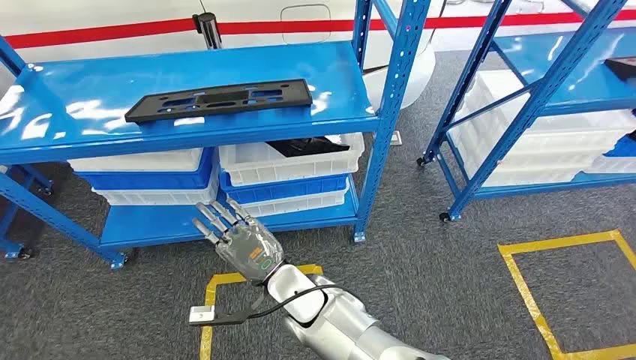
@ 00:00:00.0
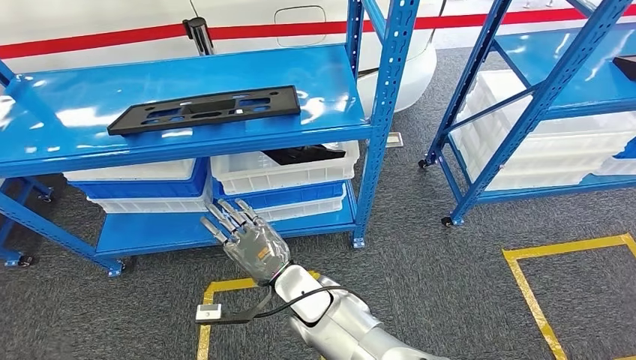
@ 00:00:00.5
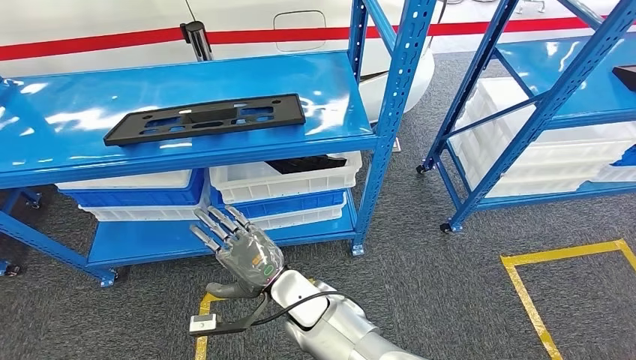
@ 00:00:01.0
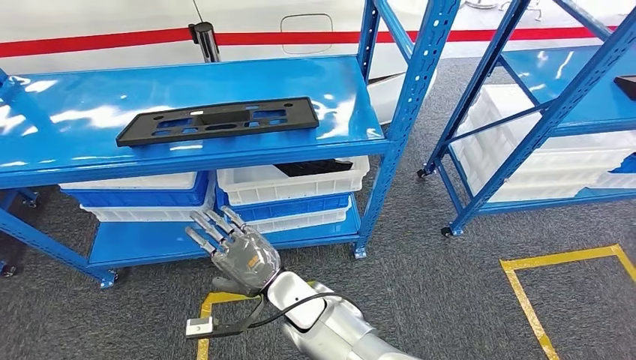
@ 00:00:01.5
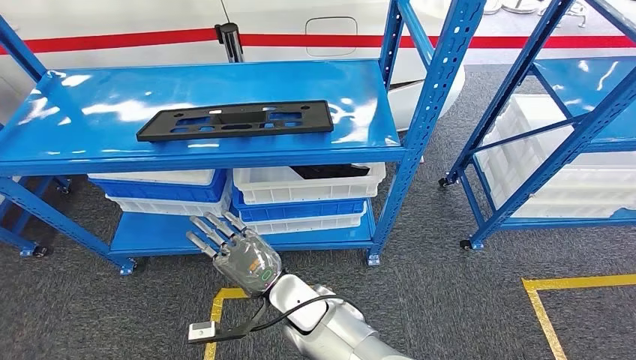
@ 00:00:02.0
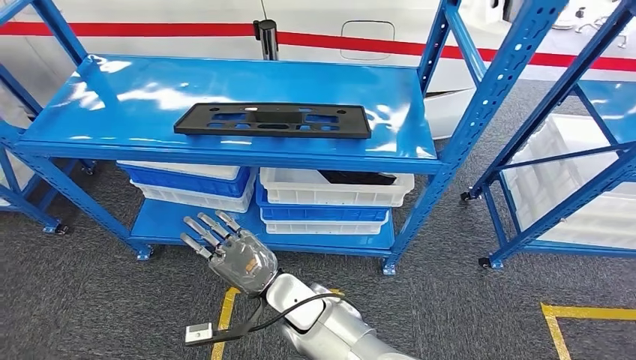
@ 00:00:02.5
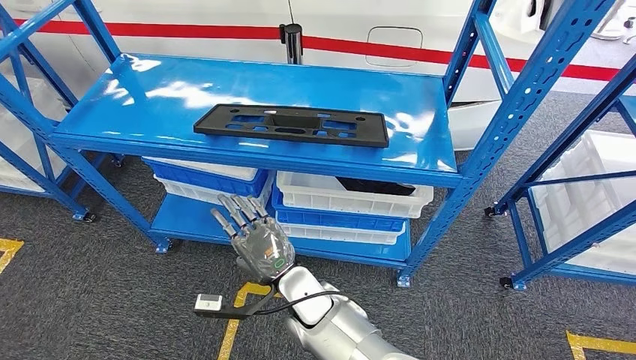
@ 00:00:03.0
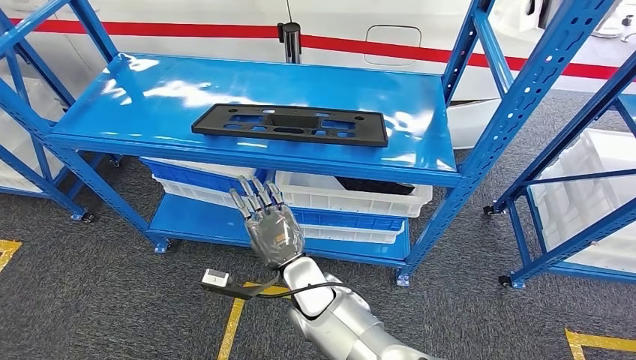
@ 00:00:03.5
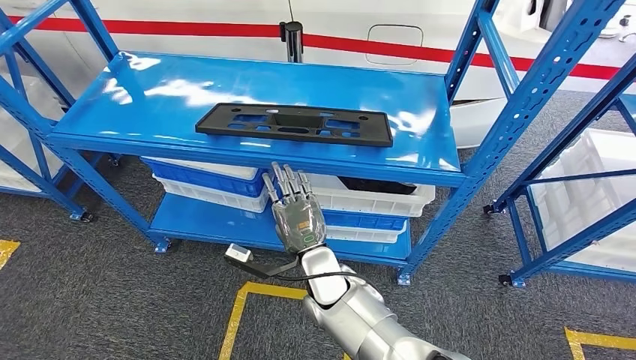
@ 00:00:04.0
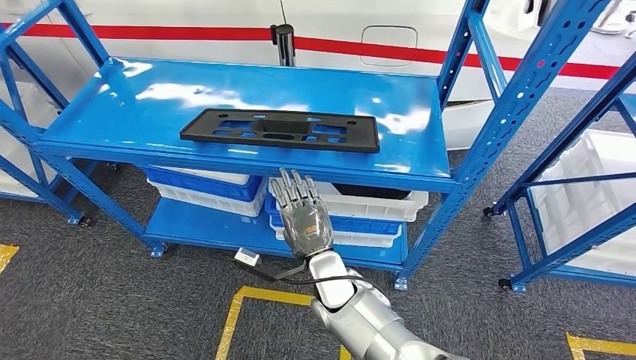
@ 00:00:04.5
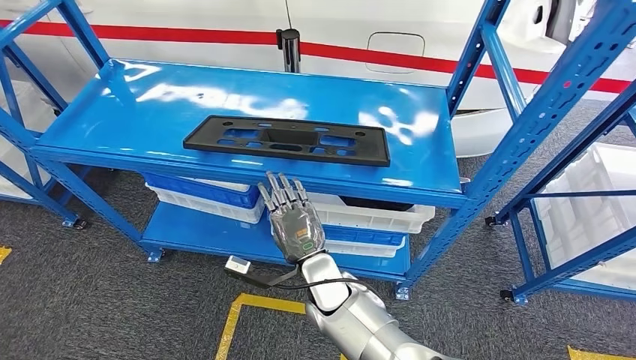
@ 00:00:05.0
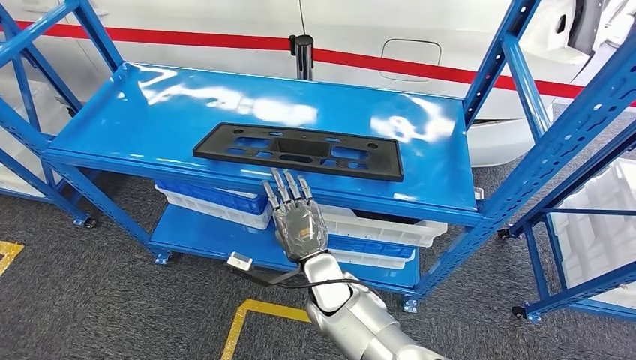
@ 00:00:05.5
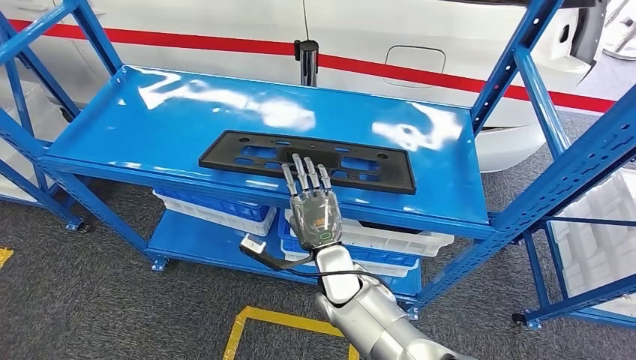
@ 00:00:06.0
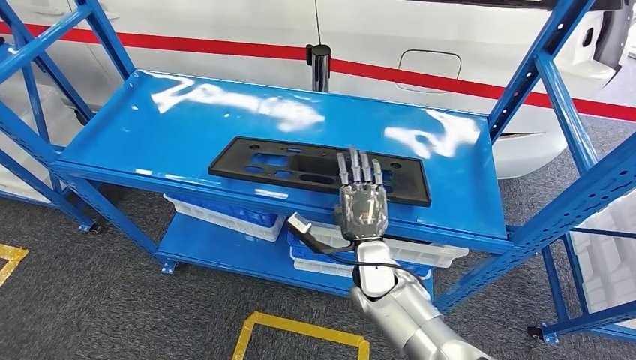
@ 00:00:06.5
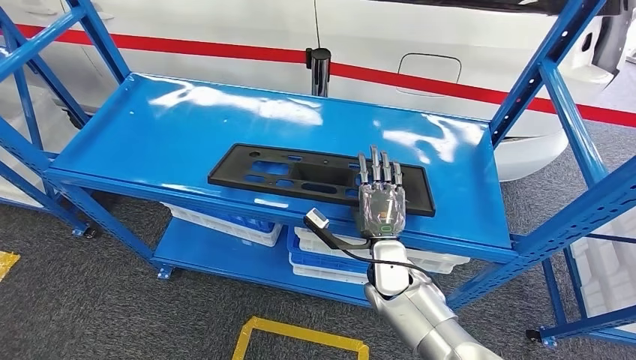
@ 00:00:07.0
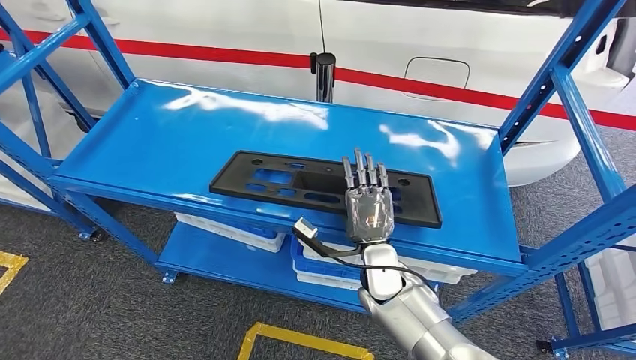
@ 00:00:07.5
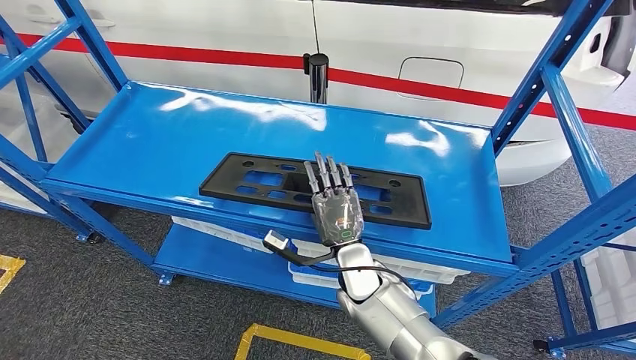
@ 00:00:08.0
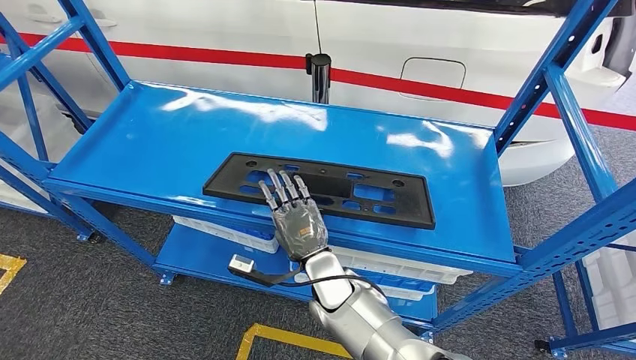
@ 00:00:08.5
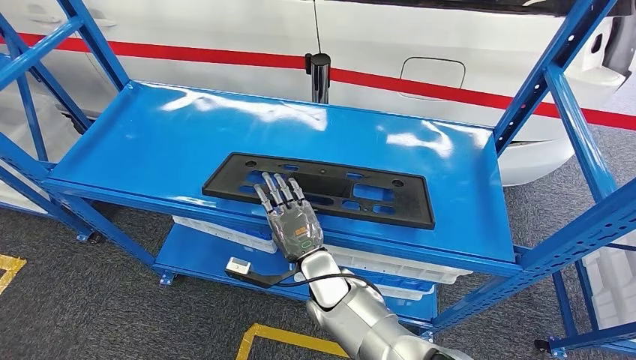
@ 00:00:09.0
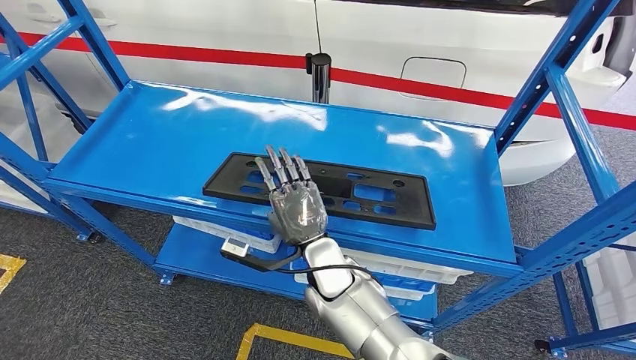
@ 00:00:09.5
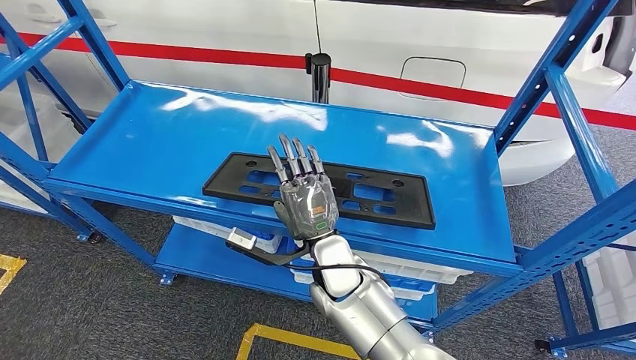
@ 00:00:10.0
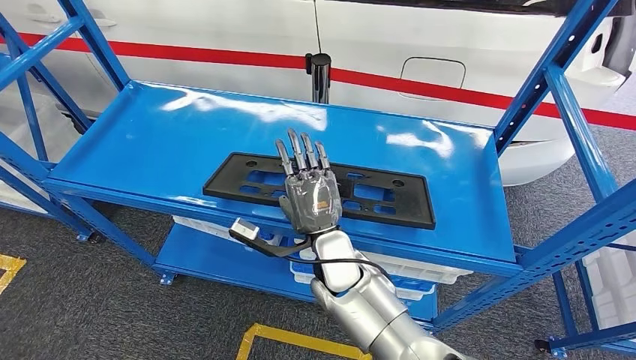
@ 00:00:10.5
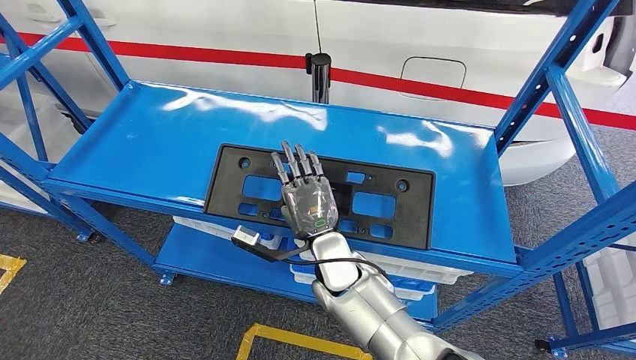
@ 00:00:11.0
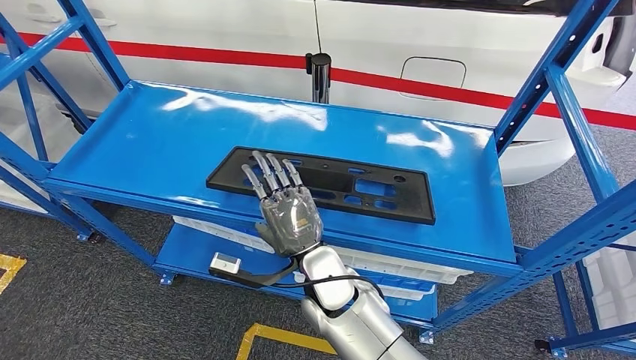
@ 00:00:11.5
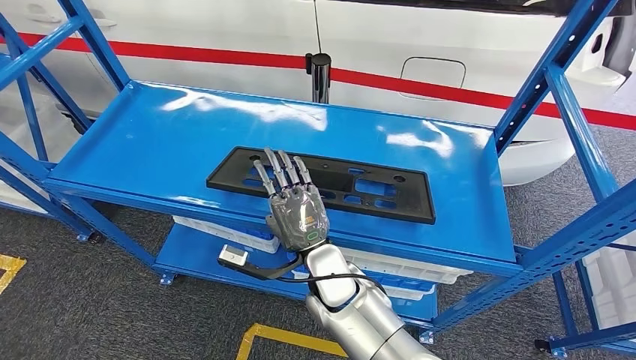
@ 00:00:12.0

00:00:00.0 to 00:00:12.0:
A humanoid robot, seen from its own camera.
00:00:08.0 to 00:00:10.0: The right hand moves upward, approximately 5 cm.
00:00:10.0 to 00:00:12.0: The hands make only small movements.

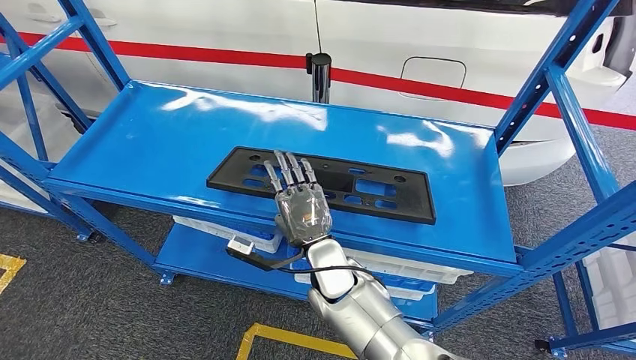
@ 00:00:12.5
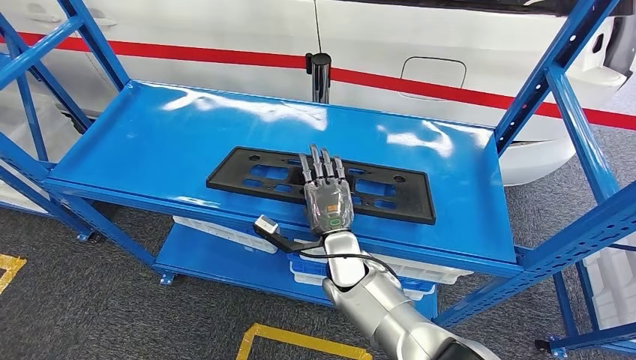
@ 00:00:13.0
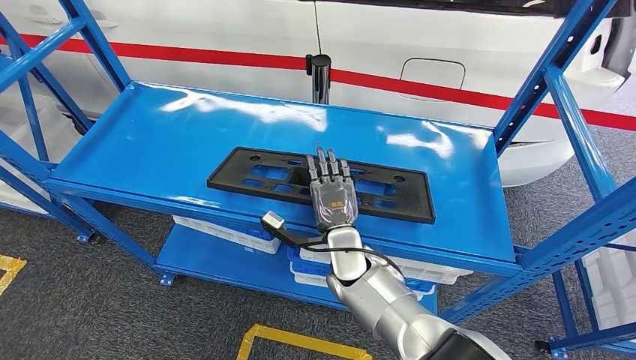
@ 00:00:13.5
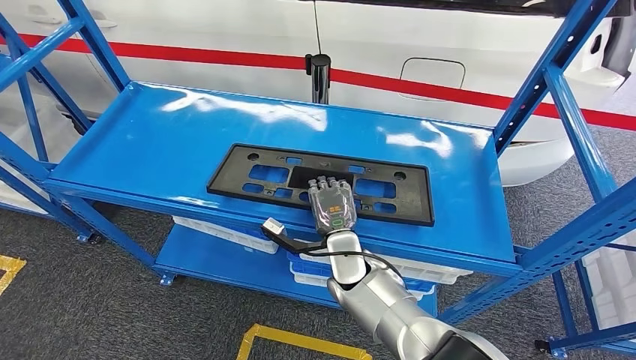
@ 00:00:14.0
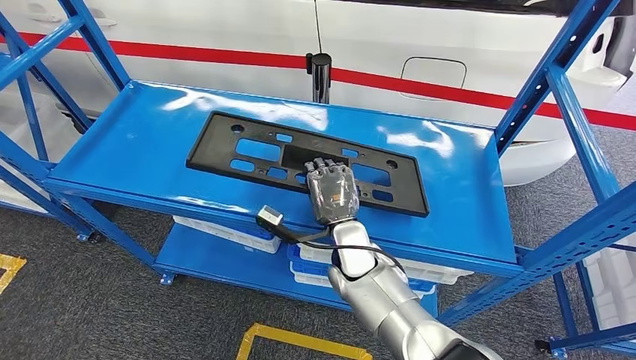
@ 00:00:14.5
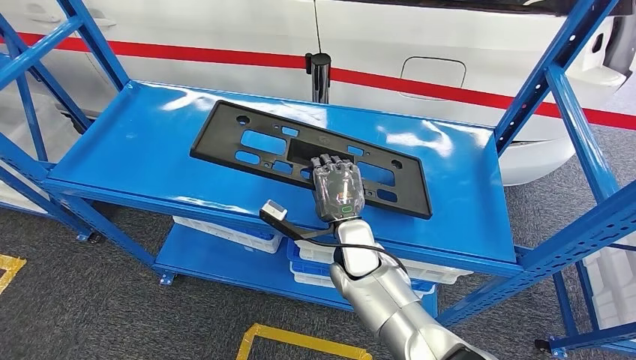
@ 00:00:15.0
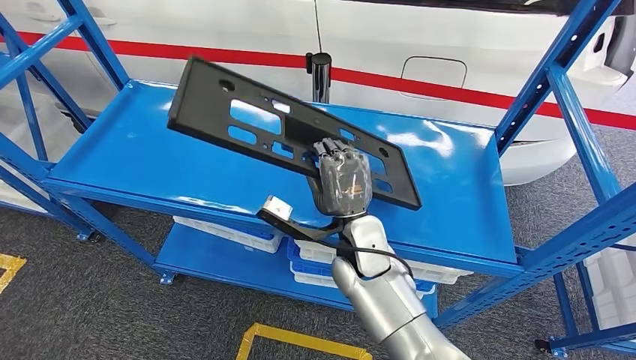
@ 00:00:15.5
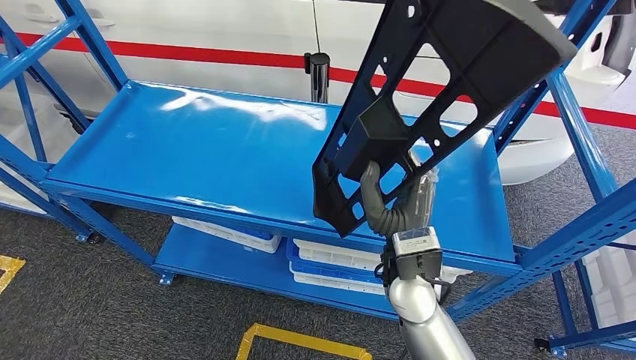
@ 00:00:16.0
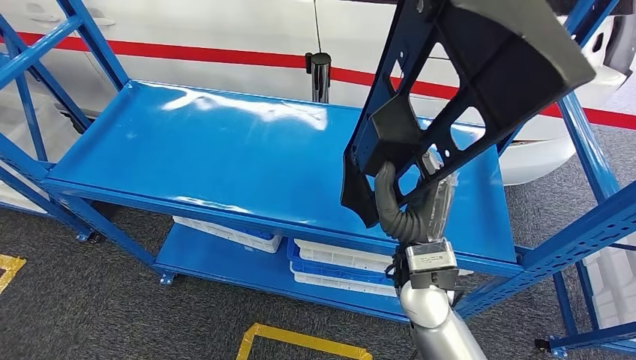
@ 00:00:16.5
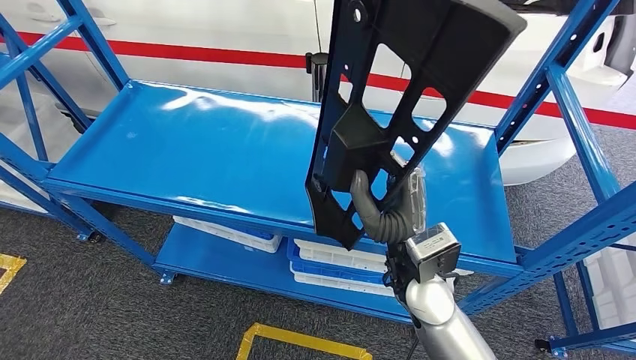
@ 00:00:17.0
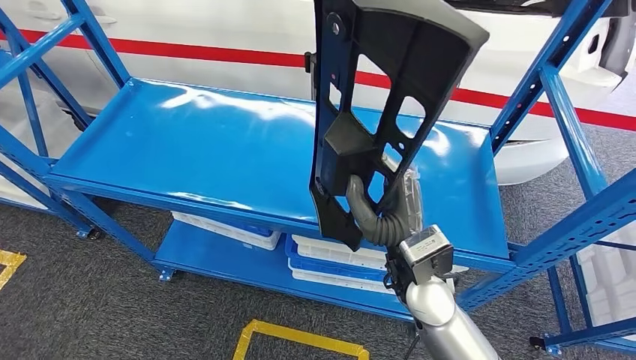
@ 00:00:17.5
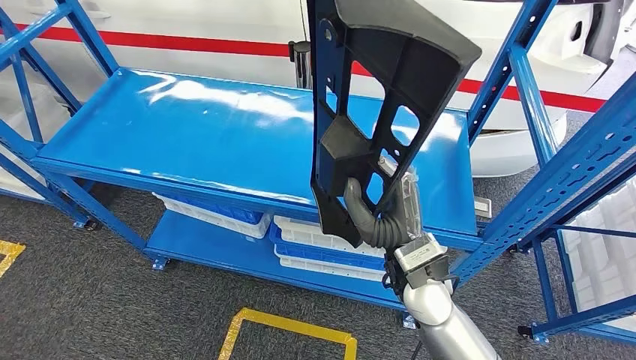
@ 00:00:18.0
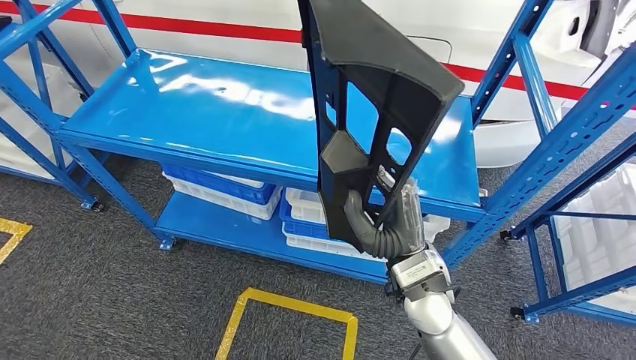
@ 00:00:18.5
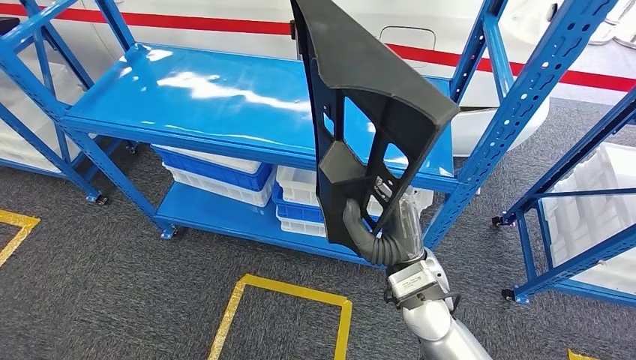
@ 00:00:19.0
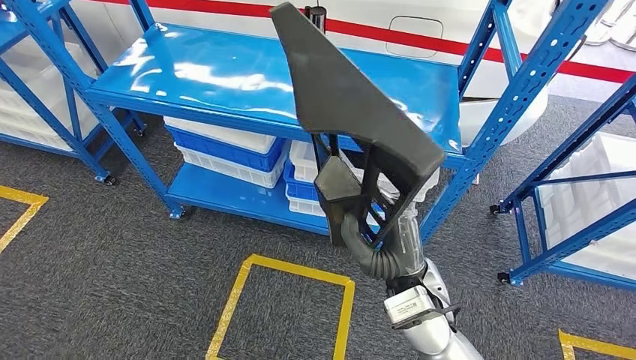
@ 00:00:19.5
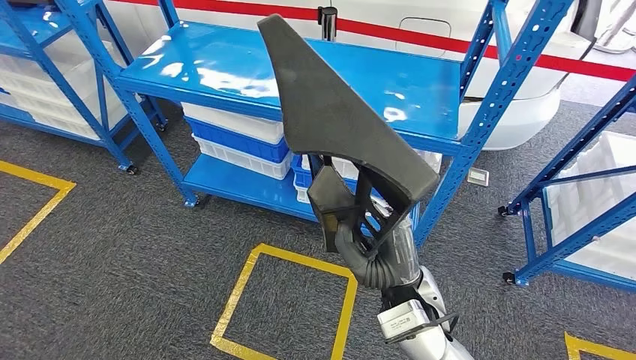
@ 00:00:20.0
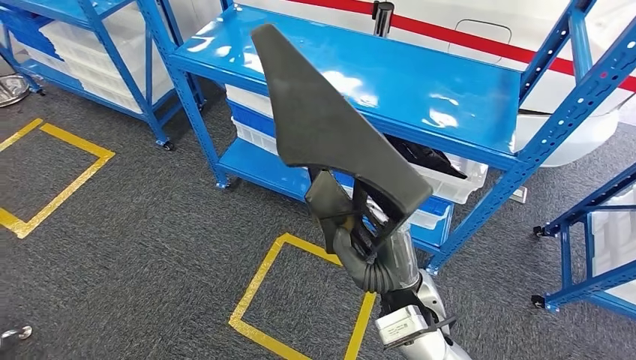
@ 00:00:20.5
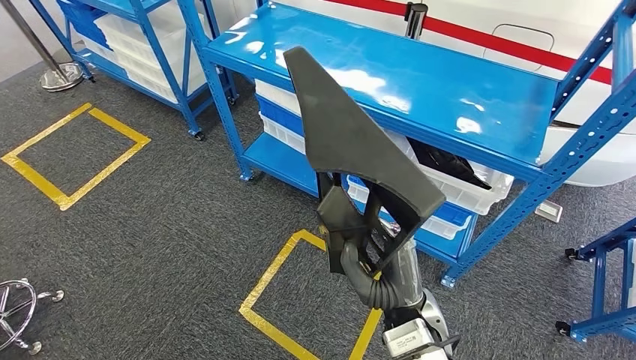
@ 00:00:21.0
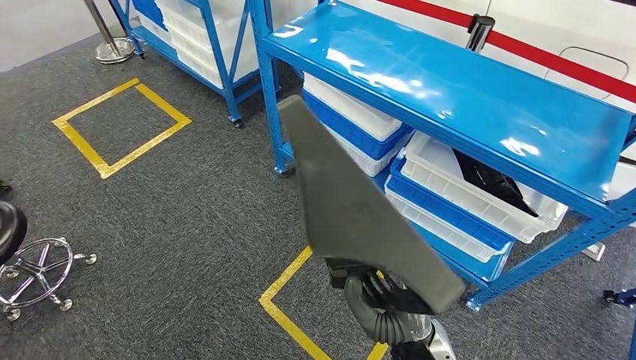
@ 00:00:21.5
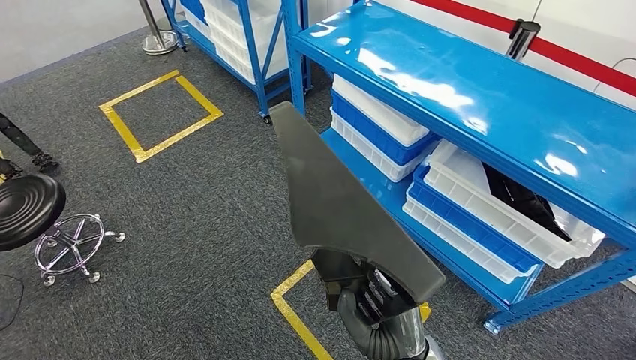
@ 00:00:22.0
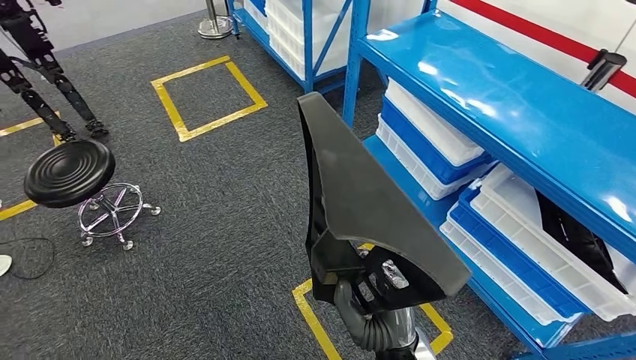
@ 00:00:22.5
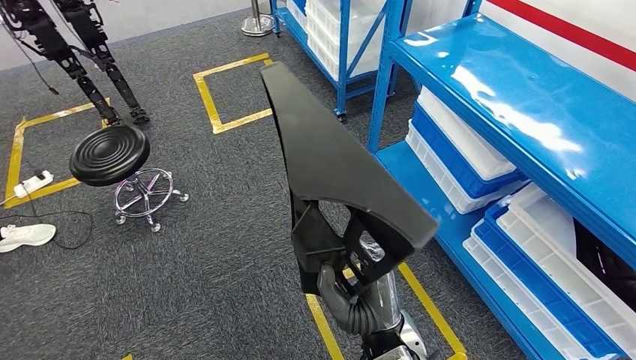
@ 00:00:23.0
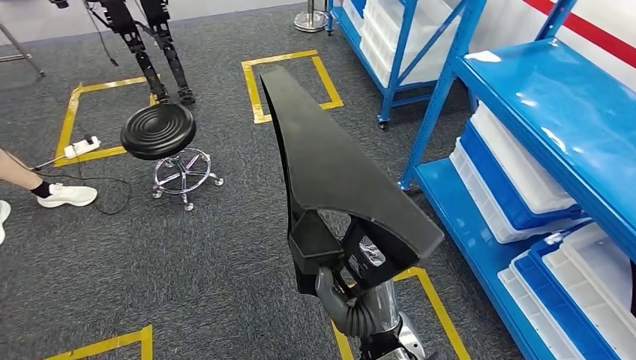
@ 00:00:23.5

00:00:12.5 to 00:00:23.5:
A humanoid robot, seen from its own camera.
Step, 00:00:12.5 to 00:00:16.0: Pick up the large material from the shelf.
00:00:12.5 to 00:00:14.5: The right hand ends up about 5 cm from where it was.
